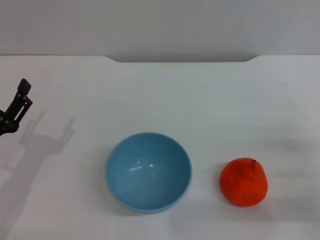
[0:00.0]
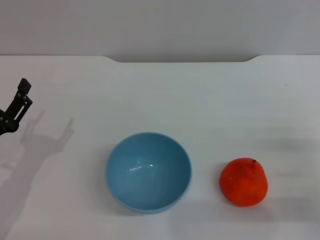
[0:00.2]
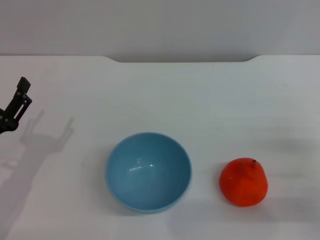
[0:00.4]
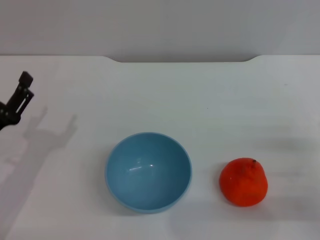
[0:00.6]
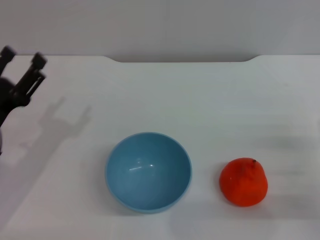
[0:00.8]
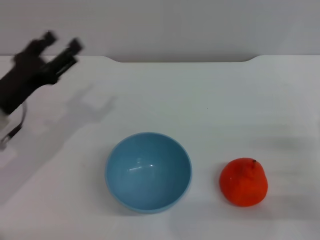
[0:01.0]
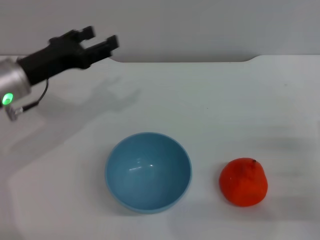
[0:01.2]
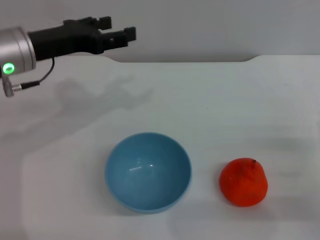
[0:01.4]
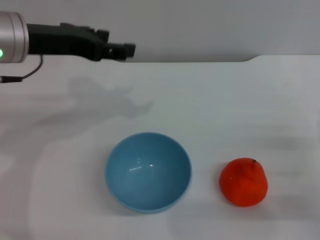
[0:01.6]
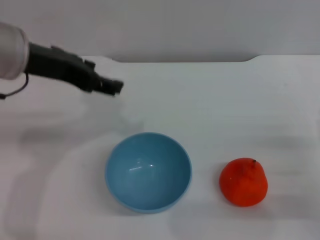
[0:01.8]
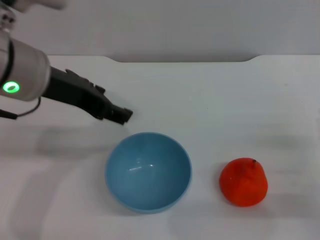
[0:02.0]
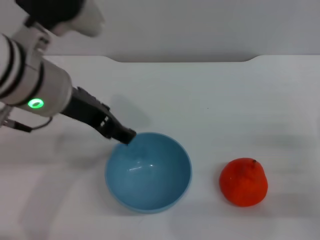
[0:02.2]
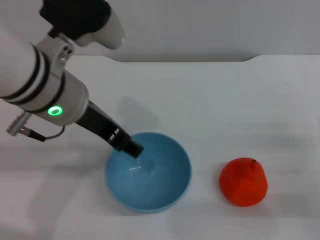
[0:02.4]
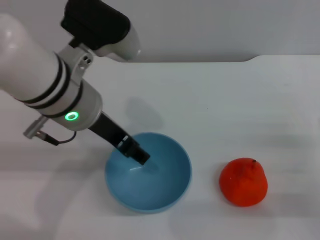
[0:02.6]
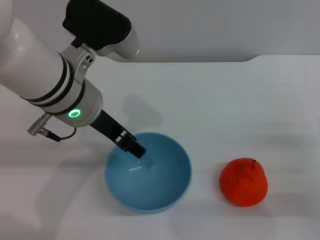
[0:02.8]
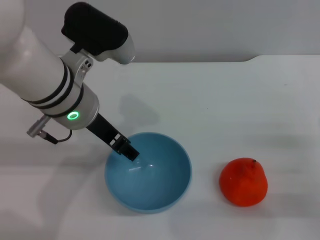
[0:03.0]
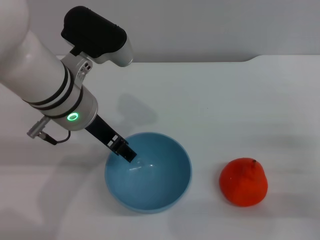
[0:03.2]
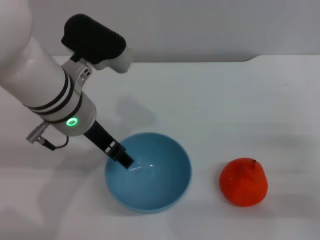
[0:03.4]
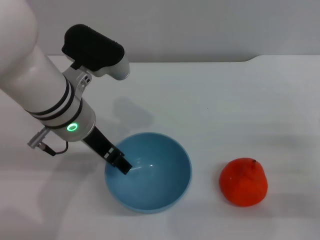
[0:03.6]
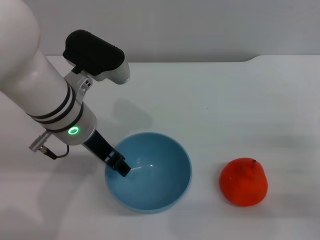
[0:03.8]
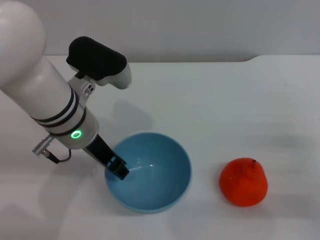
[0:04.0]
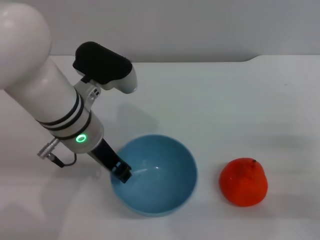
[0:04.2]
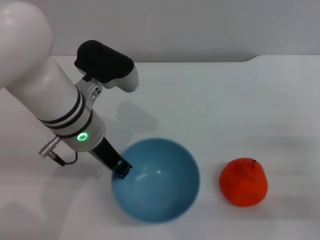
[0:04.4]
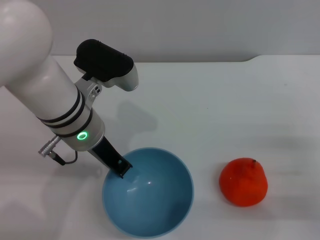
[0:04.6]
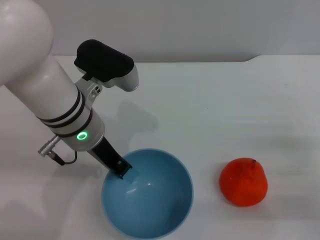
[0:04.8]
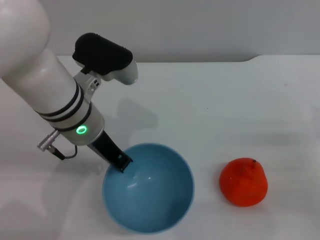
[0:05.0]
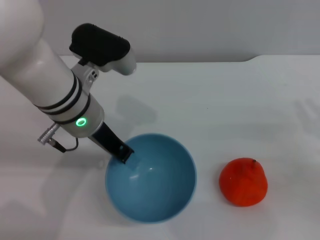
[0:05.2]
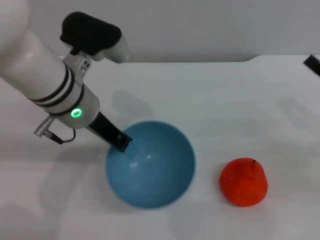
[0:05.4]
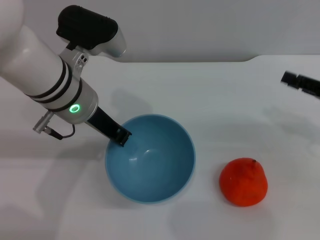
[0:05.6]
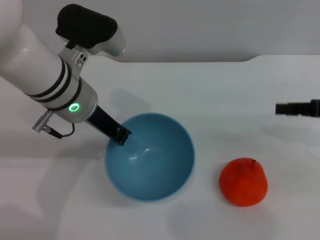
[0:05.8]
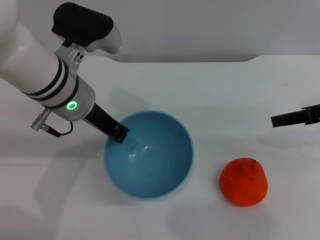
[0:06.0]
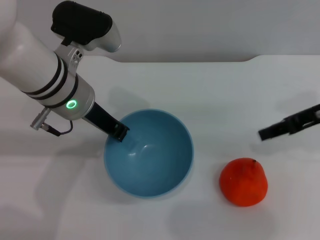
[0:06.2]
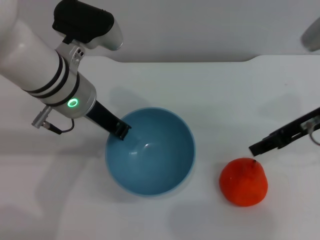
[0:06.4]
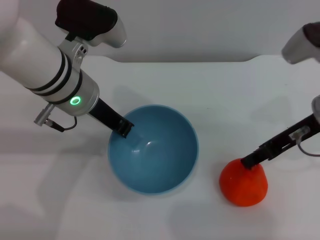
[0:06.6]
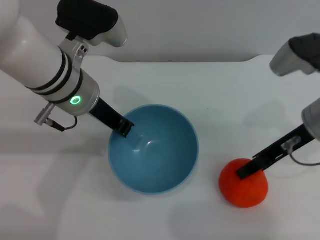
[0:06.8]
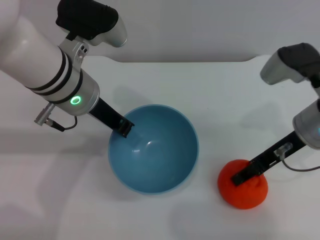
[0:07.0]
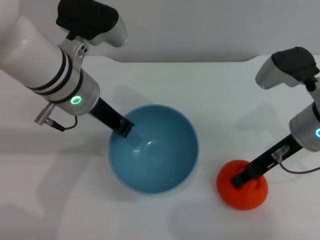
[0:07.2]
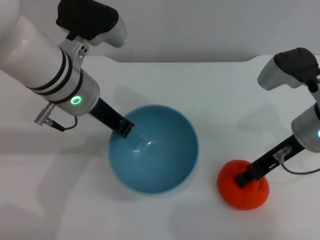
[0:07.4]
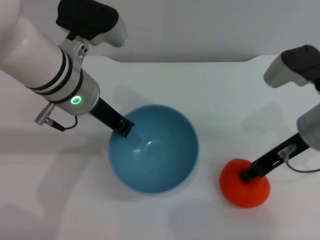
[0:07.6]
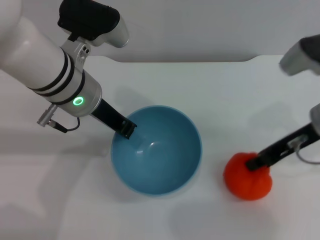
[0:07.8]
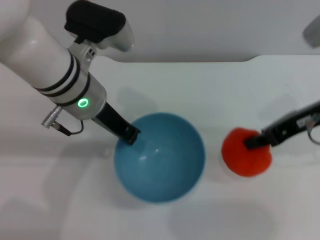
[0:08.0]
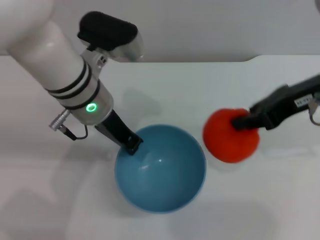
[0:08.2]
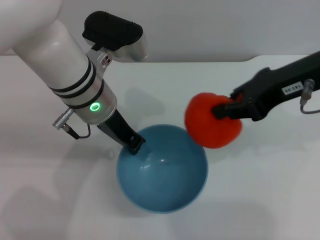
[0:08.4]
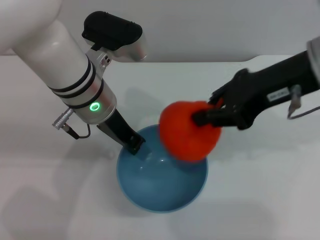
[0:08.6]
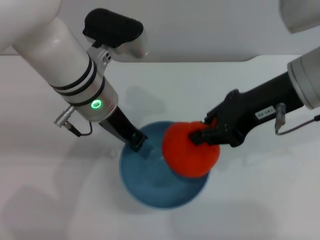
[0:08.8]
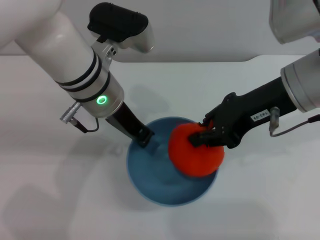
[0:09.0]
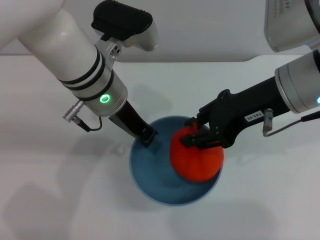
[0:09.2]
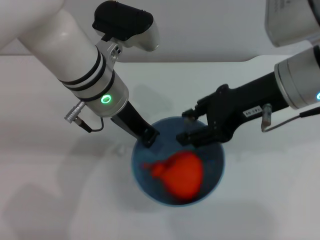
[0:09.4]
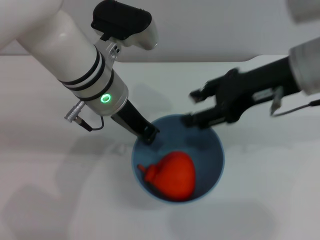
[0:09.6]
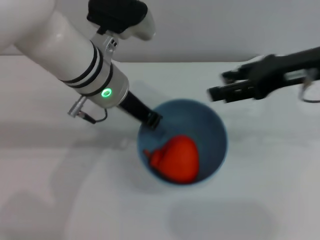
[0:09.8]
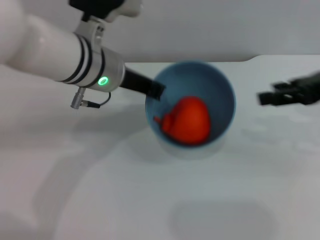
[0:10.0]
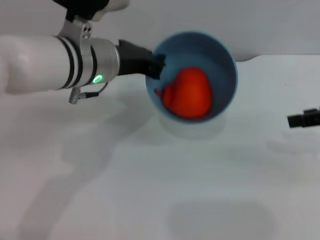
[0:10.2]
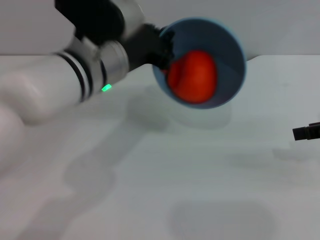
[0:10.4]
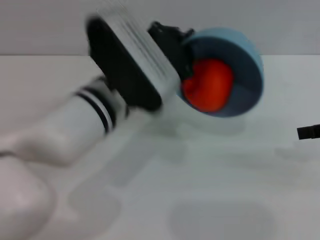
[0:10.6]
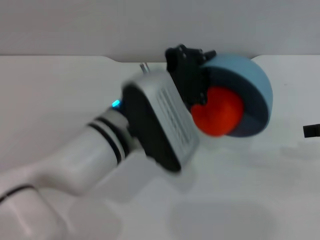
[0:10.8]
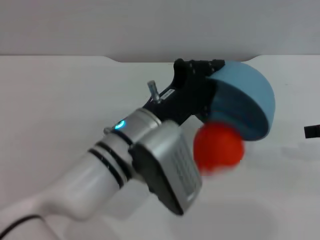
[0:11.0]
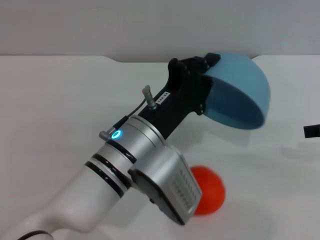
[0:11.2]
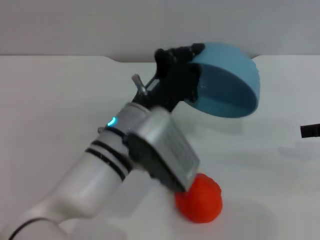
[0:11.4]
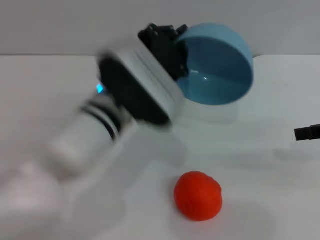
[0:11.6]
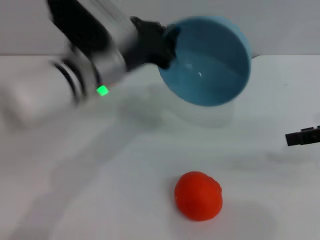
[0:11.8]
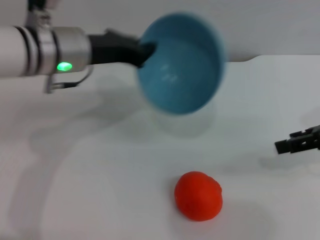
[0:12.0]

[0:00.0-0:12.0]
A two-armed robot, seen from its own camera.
Task of the whole recording: put the orange into the blue bowl and pour it out repeatedly.
Step, 0:00.0 to 0:05.2: Pick up the bowl with the left gripper.
Step, 0:05.6 to 0:08.0: Pick up the orange with the right gripper.
Step, 0:08.2 to 0:09.4: Place the orange into the bowl.
Step, 0:09.6 to 0:11.4: Pour the orange out of the bowl.
0:00.0 to 0:01.6: The left gripper travels upward, forward and to the right by roughly 25 cm.
0:01.6 to 0:03.0: The left gripper moves to the right, some 10 cm.
0:03.0 to 0:04.4: The left gripper closes its fingers.
0:04.4 to 0:06.0: The right gripper goes roughly 20 cm upward and forward.
0:06.0 to 0:07.6: The right gripper travels to the left by roughly 10 cm, and closes up.
0:07.6 to 0:09.0: The right gripper travels upward by approximately 10 cm.
0:09.0 to 0:10.4: The right gripper shifts approximately 15 cm to the right, and opens.
0:10.4 to 0:12.0: The left gripper heads to the left, covering roughly 5 cm, and reaches about 10 cm backward, then returns.

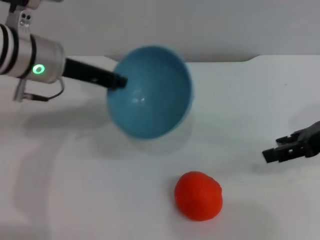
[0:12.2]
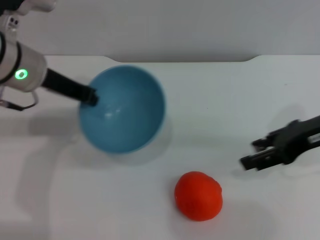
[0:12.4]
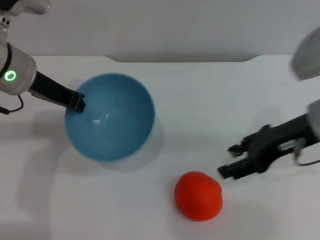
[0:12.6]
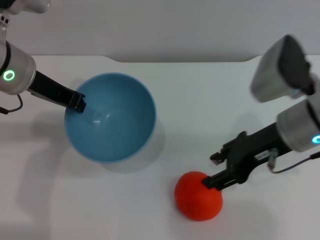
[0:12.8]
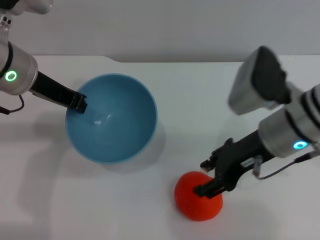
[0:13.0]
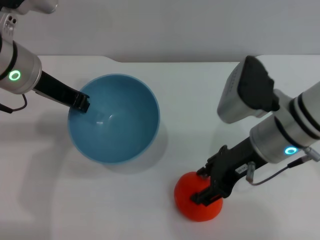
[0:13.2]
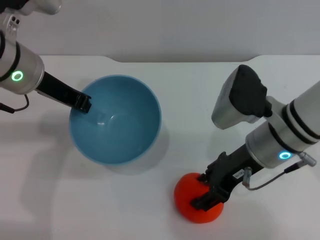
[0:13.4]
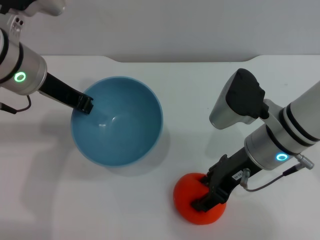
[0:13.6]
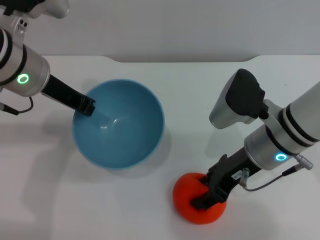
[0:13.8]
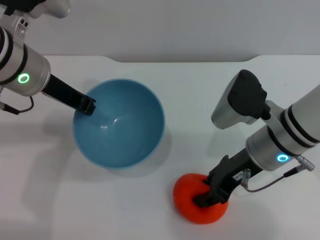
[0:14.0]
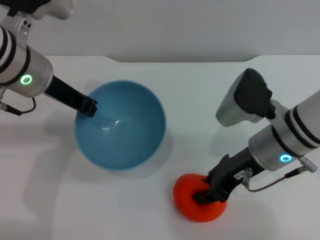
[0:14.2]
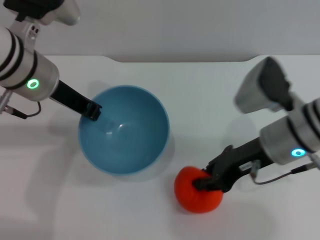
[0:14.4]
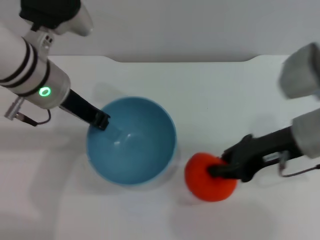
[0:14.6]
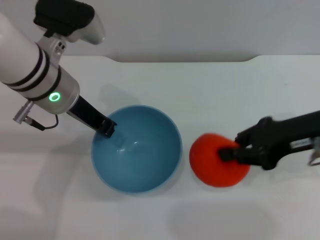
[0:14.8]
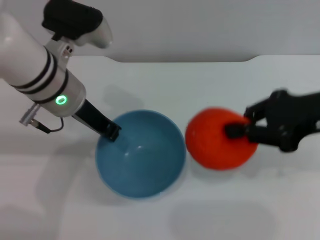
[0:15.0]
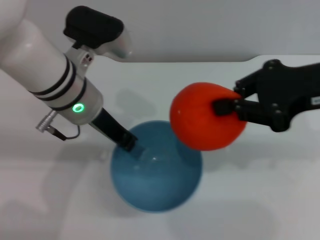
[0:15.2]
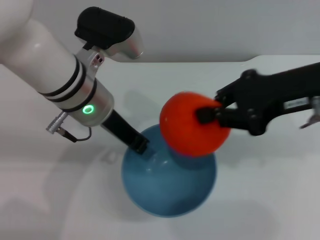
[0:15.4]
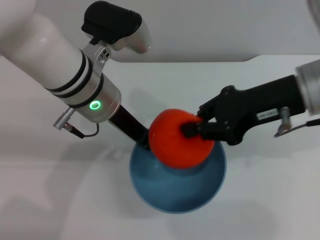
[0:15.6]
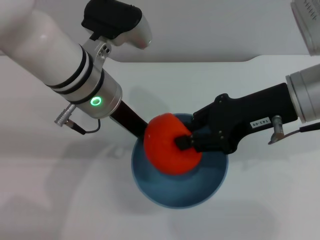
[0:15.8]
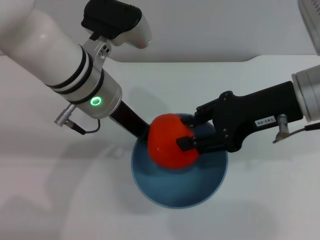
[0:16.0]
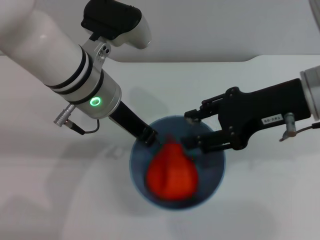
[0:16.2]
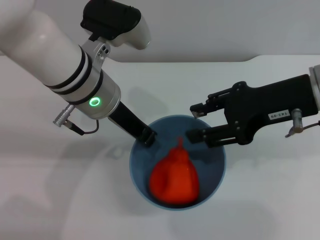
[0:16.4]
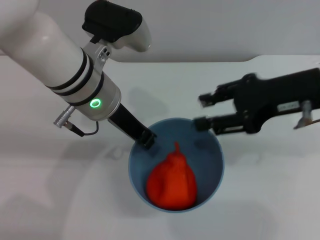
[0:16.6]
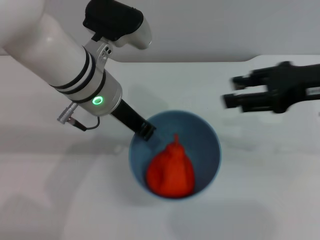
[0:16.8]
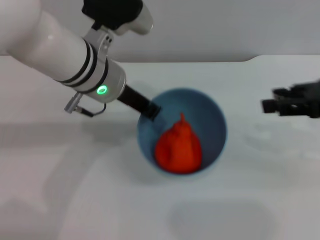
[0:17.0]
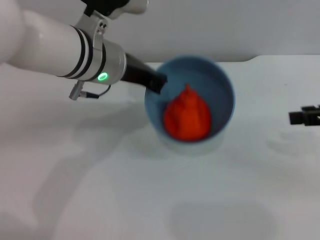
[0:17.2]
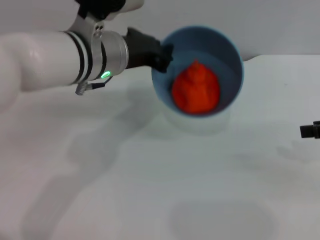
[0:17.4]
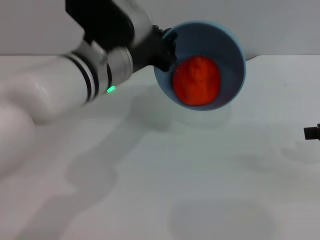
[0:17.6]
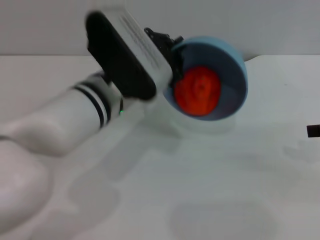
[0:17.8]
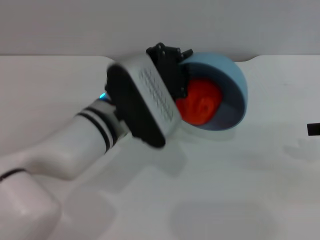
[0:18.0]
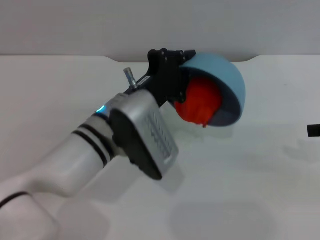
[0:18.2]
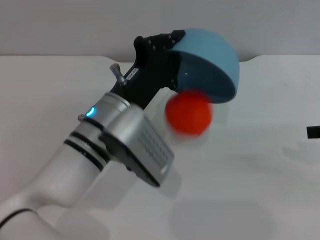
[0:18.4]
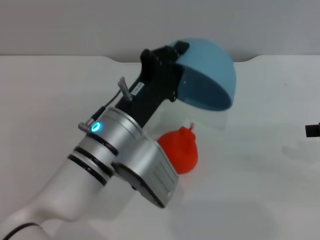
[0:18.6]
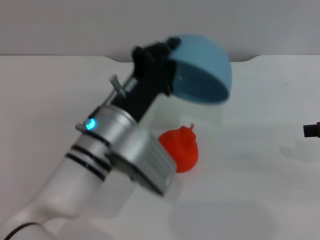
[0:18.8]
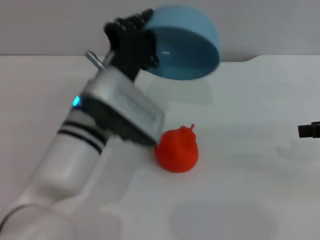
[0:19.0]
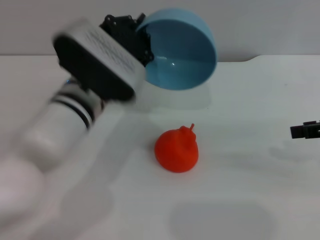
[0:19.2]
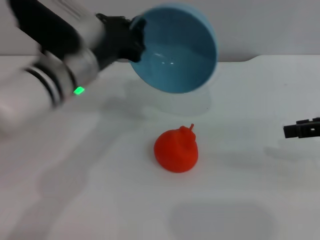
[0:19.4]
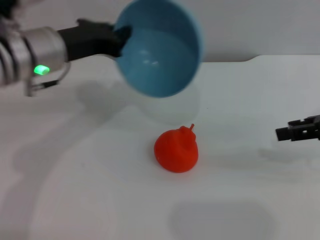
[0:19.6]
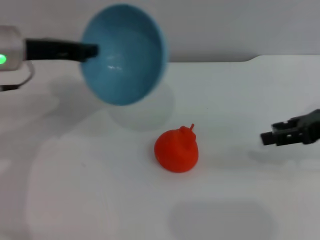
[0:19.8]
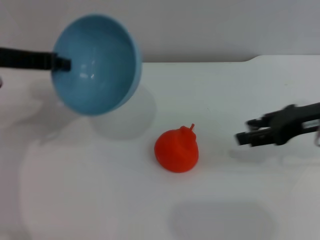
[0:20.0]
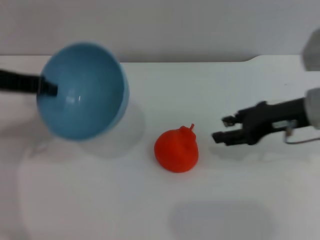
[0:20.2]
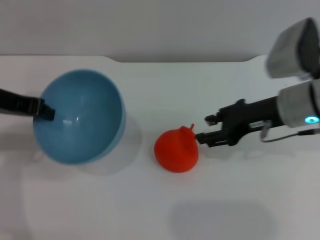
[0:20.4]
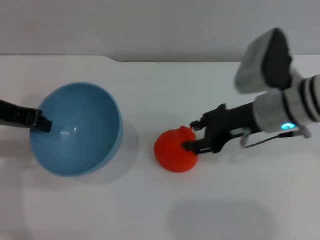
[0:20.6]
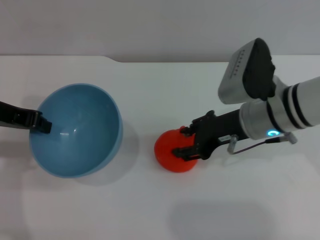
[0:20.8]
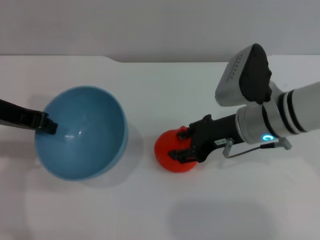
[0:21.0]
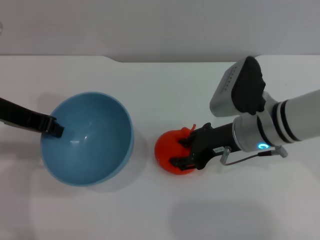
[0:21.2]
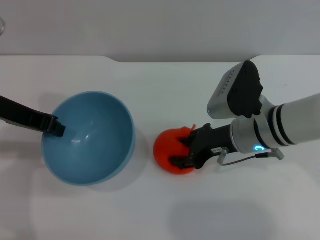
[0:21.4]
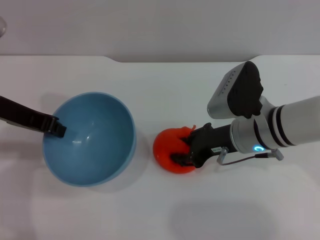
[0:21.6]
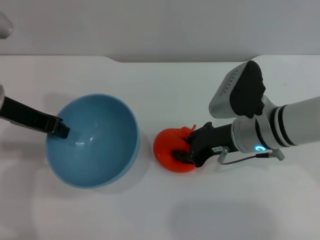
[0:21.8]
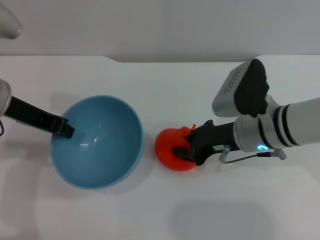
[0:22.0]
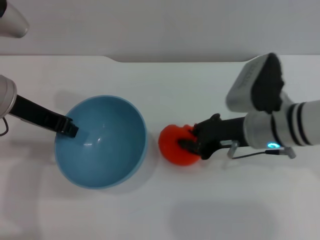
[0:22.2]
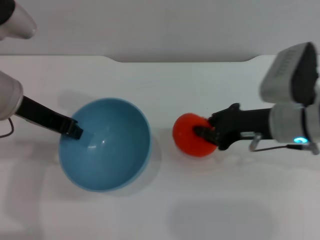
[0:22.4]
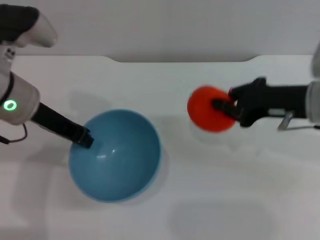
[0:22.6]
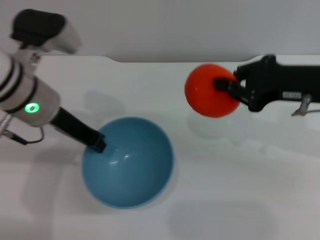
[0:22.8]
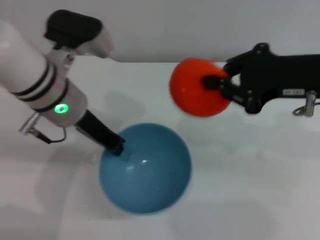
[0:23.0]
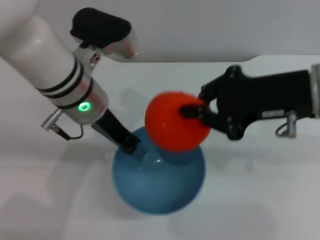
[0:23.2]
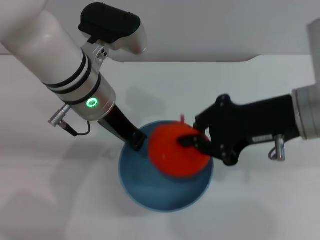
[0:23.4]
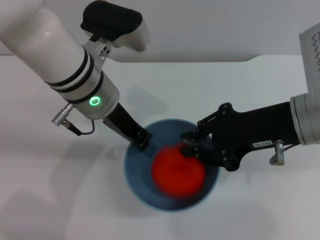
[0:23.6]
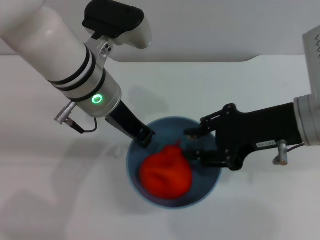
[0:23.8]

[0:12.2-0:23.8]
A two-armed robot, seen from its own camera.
Task of the whole recording: put the orange into the blue bowl and pour it out repeatedly.
Step, 0:12.2 to 0:14.6: Pick up the orange with the right gripper.
Step, 0:14.8 to 0:16.6: Place the orange into the bowl.
Step, 0:16.8 to 0:18.4: Pour the orange out of the bowl.
Step, 0:18.8 to 0:22.6: Pick up the orange with the right gripper.
0:12.2 to 0:13.6: The right gripper moves to the left and downward, about 15 cm.
0:13.6 to 0:15.0: The right gripper moves upward and to the right, roughly 15 cm, and closes up, while the left gripper moves about 5 cm.
0:15.0 to 0:16.6: The right gripper opens.
0:16.6 to 0:18.0: The right gripper is displaced to the right by approximately 15 cm. Meanwhile the left gripper shifts roughly 5 cm downward.
0:18.0 to 0:19.4: The left gripper shifts about 5 cm to the left.
0:19.4 to 0:21.0: The right gripper shifts approximately 20 cm to the left and downward; the left gripper moves to the left, about 15 cm.
0:21.0 to 0:22.4: The right gripper ends up some 5 cm from where it was, and closes.
0:22.4 to 0:23.8: The left gripper heads to the right, covering some 10 cm. The right gripper moves upward, some 5 cm.
